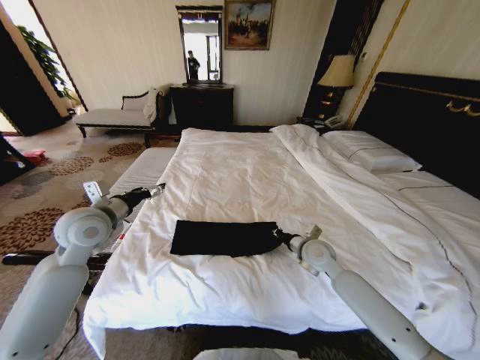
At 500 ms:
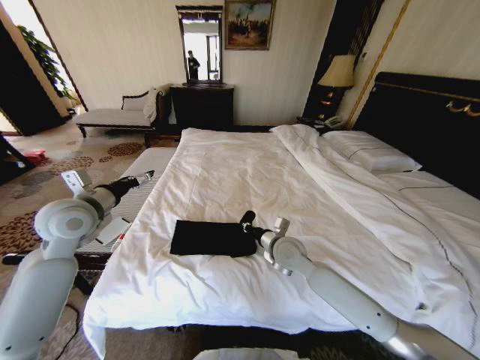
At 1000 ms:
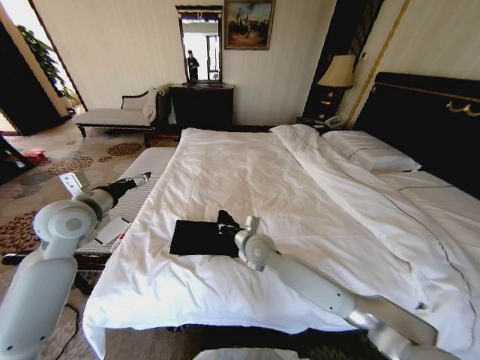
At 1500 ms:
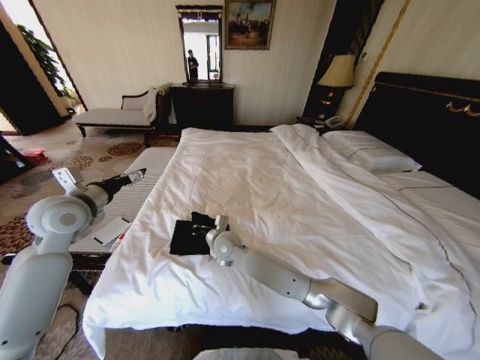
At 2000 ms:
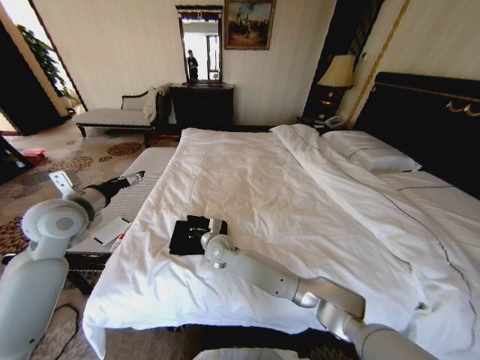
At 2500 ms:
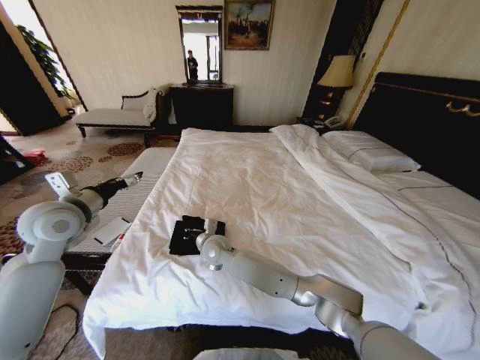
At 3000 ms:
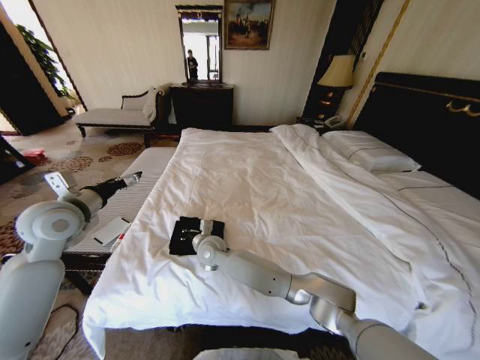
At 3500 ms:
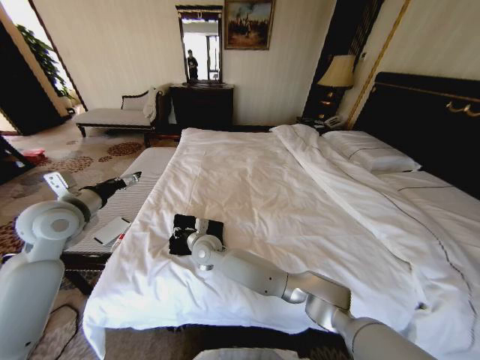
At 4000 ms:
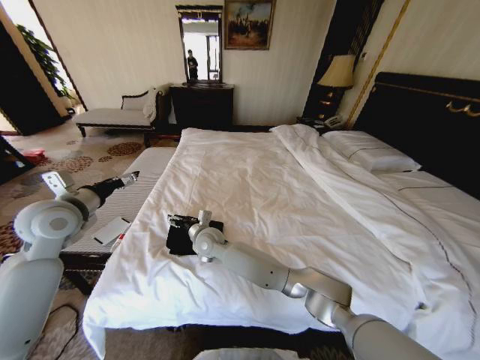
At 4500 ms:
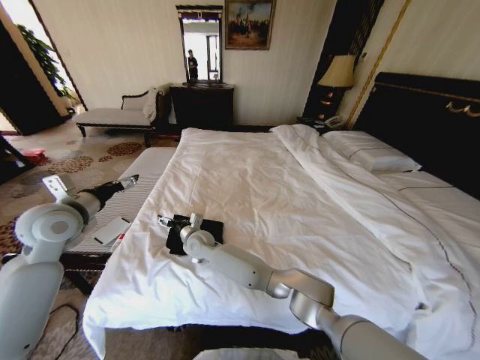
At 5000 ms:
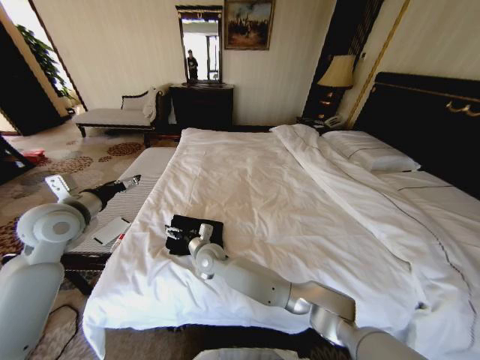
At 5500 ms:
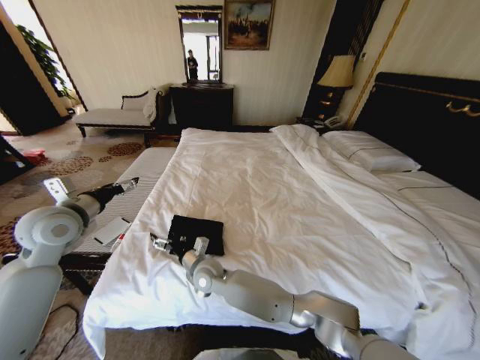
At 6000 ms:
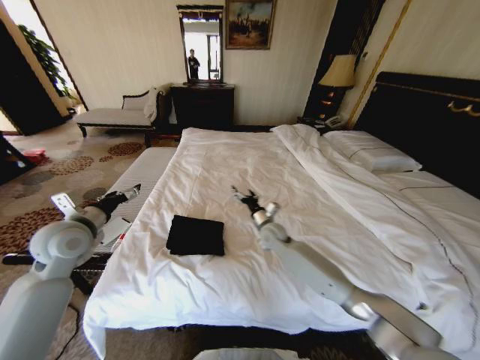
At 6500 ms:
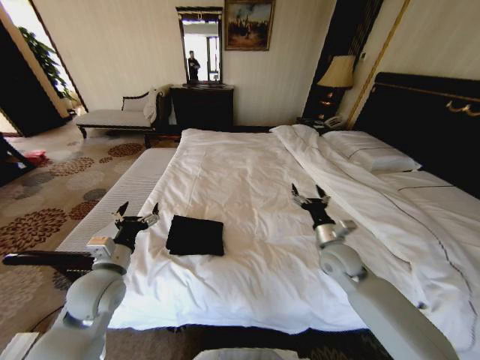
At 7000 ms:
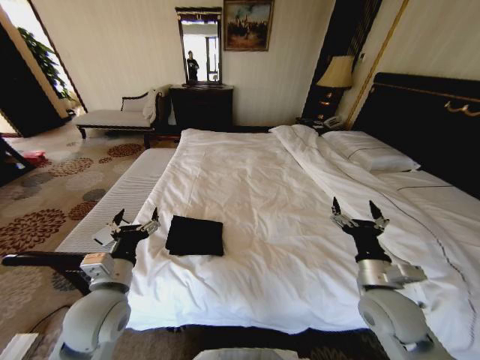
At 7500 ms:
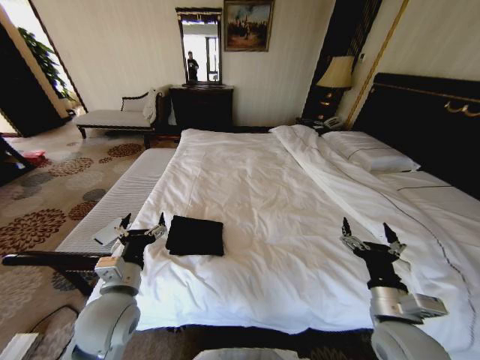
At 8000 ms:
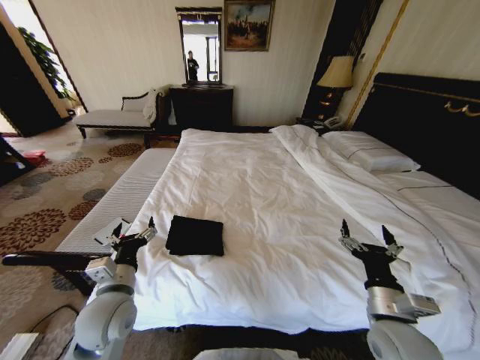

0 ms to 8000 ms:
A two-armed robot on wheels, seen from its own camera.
Task of the whole recording: Fold the clothes on the bed.
0 ms to 2000 ms: The right gripper travels to the left by about 30 cm.
2000 ms to 4000 ms: The right gripper opens up.
4000 ms to 6000 ms: The right gripper goes approximately 20 cm to the right.
6000 ms to 8000 ms: The left gripper goes roughly 20 cm backward, to the right and downward. The right gripper is displaced backward and to the right by some 35 cm.
